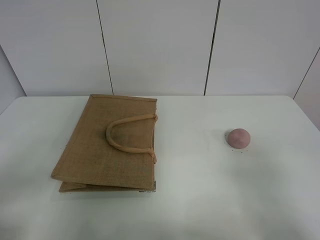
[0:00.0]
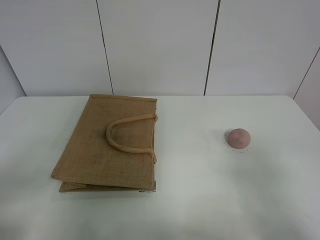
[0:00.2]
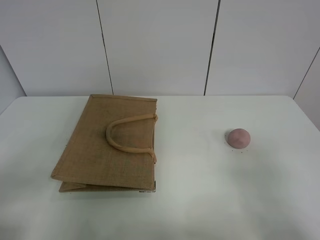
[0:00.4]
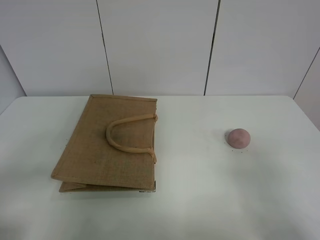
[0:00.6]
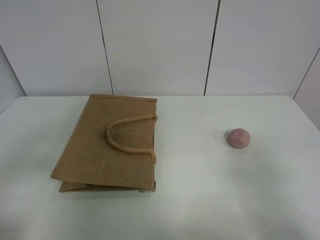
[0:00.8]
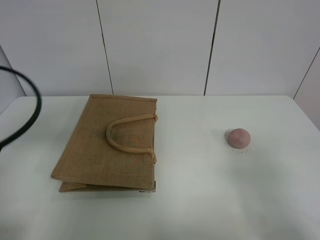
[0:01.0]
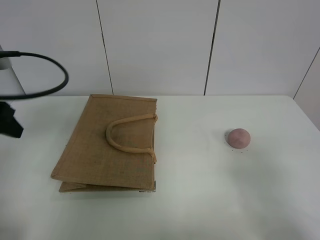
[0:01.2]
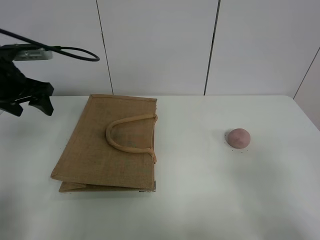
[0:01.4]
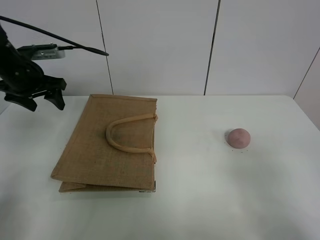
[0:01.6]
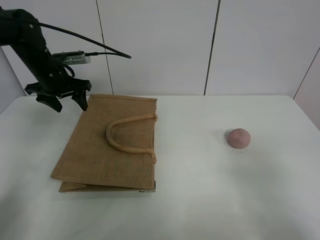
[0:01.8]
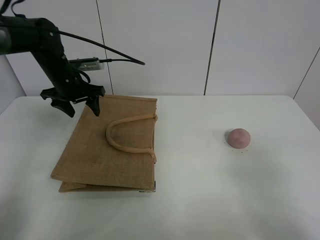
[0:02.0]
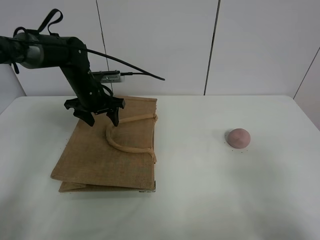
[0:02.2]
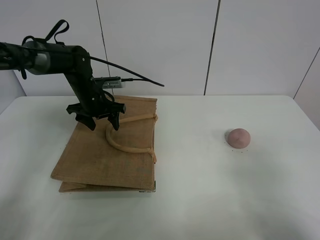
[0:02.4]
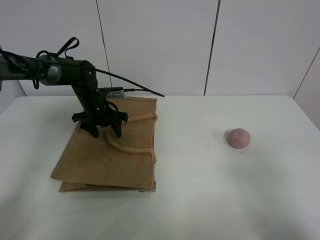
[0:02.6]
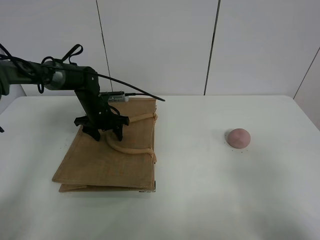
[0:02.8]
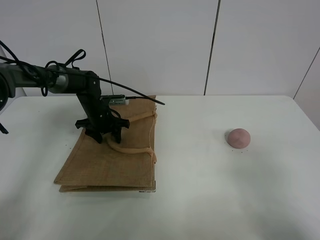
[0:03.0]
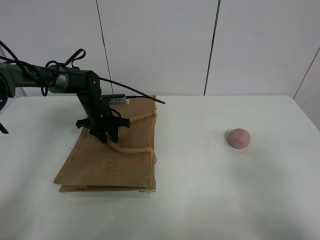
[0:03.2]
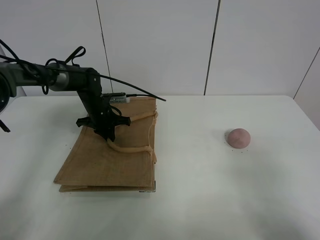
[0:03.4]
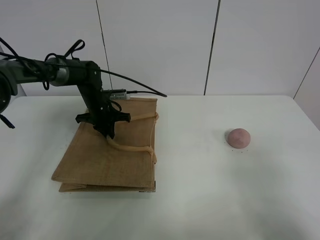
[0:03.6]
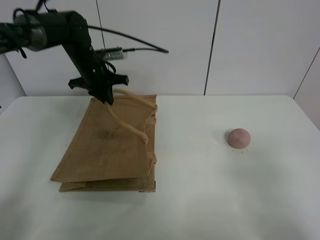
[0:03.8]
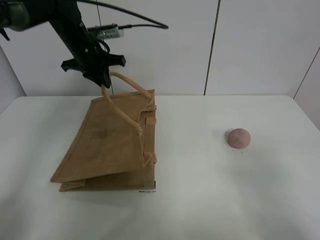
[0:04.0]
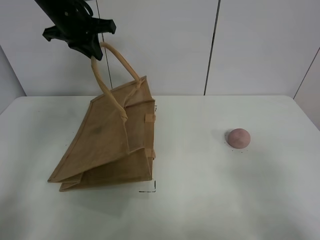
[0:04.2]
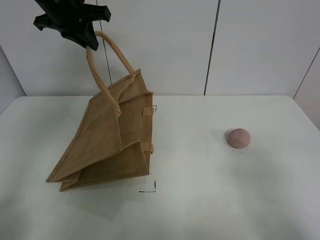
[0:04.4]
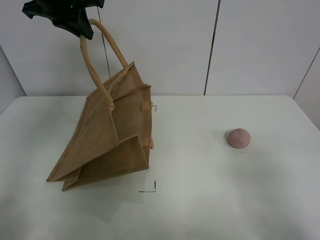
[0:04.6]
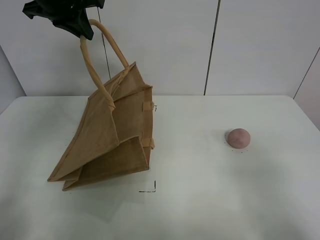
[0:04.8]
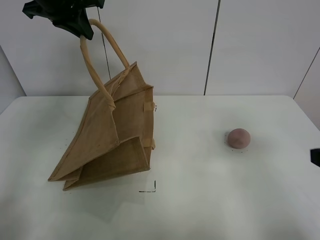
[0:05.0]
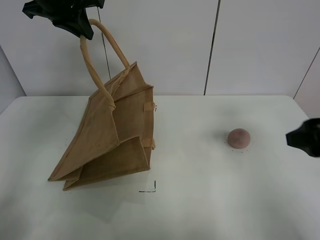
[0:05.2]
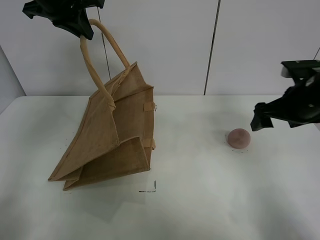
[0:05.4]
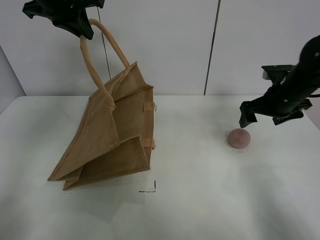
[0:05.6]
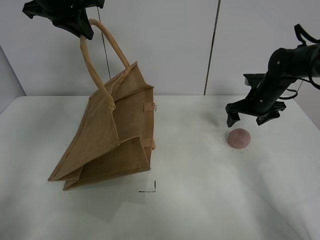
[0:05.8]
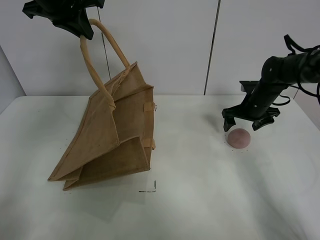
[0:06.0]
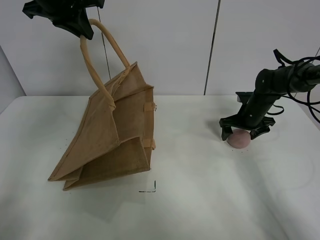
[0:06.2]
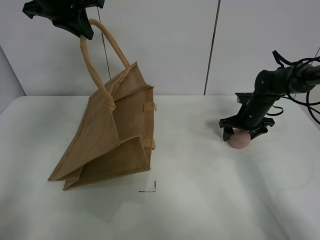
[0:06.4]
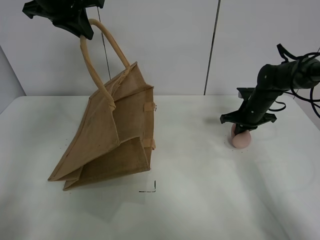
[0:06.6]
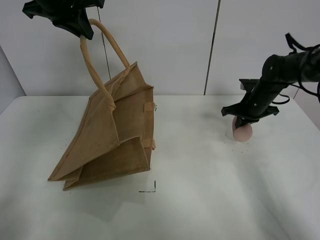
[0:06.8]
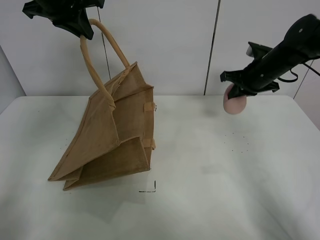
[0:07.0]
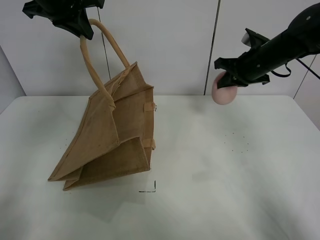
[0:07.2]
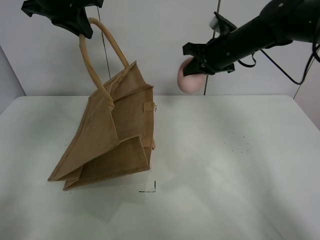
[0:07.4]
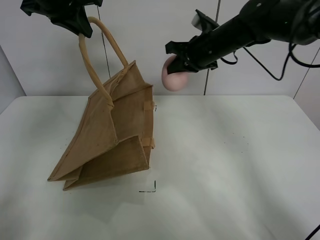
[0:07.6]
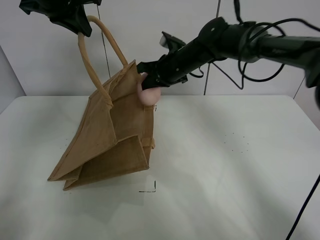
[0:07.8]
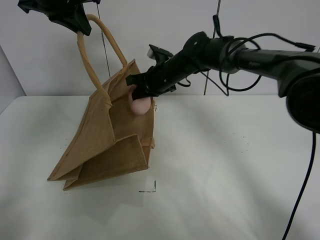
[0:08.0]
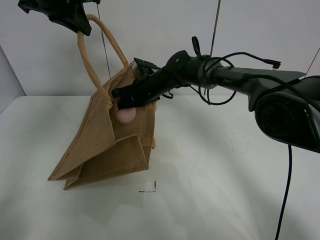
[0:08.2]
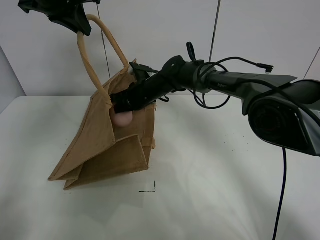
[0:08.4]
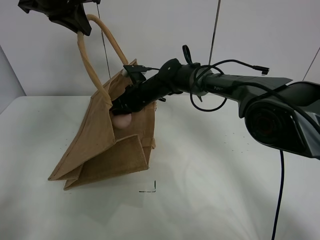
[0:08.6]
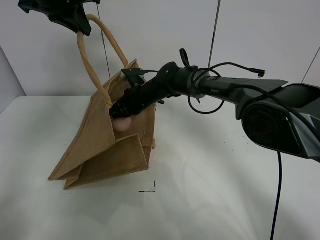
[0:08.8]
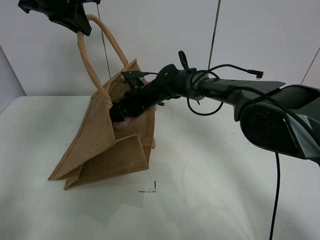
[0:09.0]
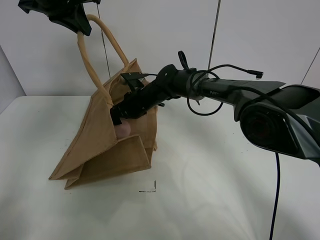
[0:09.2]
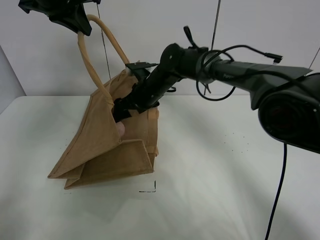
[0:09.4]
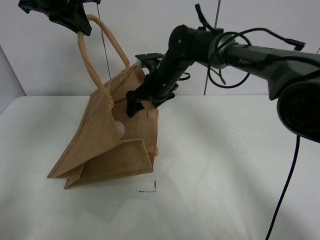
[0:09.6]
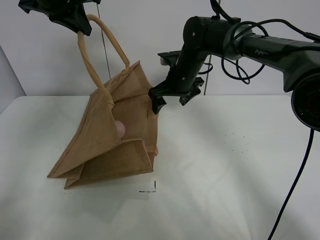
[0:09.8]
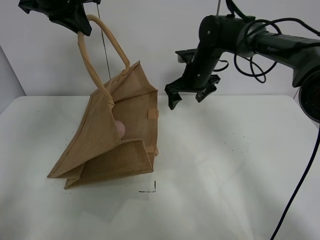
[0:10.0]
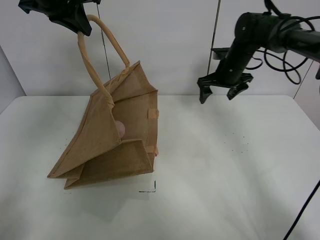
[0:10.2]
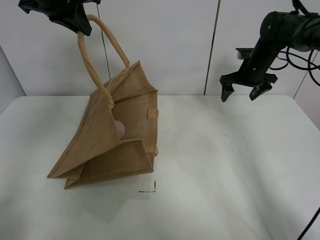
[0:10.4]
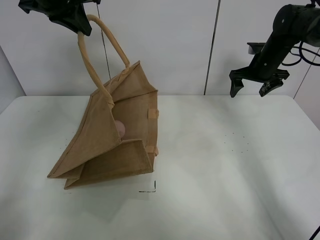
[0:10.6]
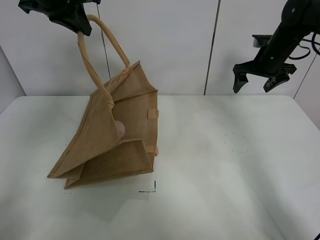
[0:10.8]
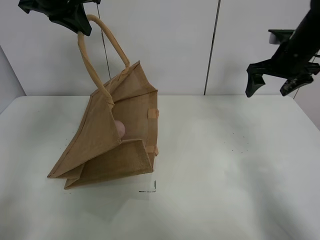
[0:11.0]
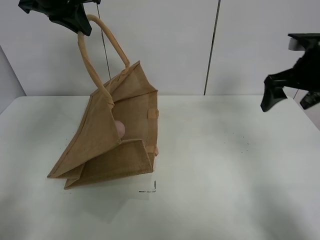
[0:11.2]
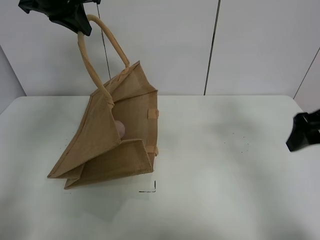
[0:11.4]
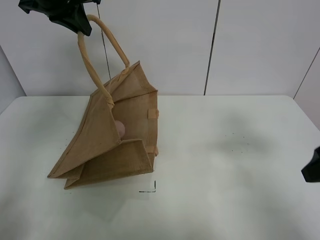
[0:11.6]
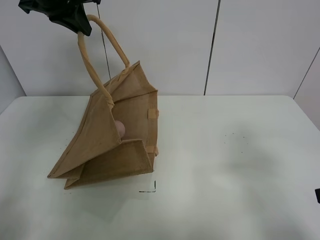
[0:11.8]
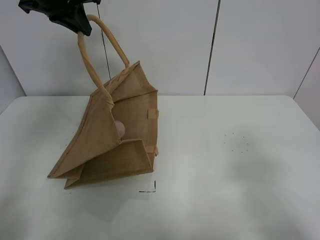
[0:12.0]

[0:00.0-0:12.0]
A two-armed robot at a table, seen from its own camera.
Task of the whole recording: open the brown linen bag and put the peach in the bag.
Step, 0:00.0 to 0:04.6: Lift the handbag with left gripper.
Step, 0:04.8 to 0:06.6: Grasp the peach with right gripper.
Step, 0:06.8 to 0:09.8: Place the peach in the handbag with right gripper.
0:00.0 to 0:01.6: The left gripper is displaced forward by some 40 cm.
0:01.6 to 0:03.0: The left gripper is displaced downward and to the right by some 20 cm.
0:03.0 to 0:04.4: The left gripper goes roughly 30 cm upward, and closes its fingers.
0:04.4 to 0:06.0: The right gripper shifts approximately 40 cm forward.
0:06.0 to 0:07.6: The right gripper goes approximately 20 cm to the left and upward, and closes up.
0:07.6 to 0:09.0: The right gripper moves downward and to the left, some 20 cm, and opens up.
0:09.0 to 0:10.4: The right gripper shifts about 30 cm to the right.
0:10.4 to 0:12.0: The right gripper travels backward by some 40 cm.

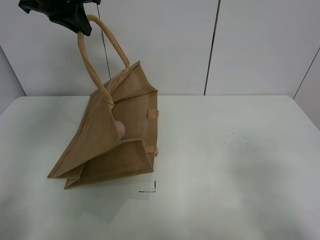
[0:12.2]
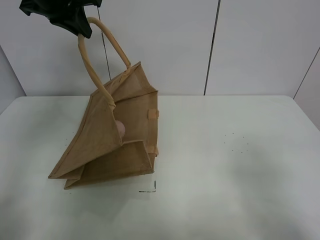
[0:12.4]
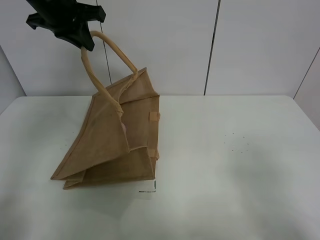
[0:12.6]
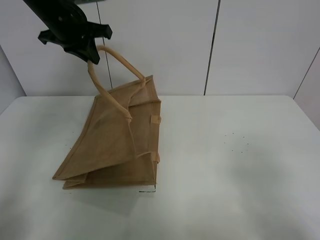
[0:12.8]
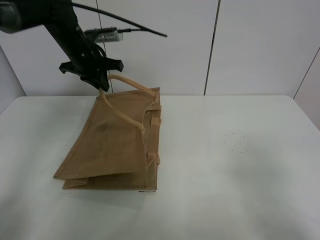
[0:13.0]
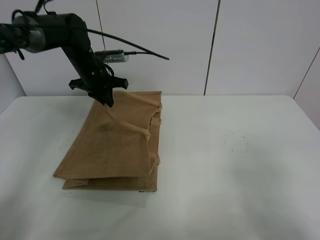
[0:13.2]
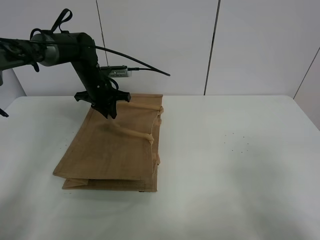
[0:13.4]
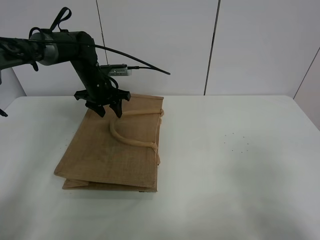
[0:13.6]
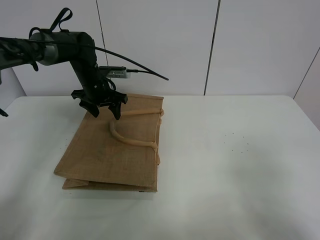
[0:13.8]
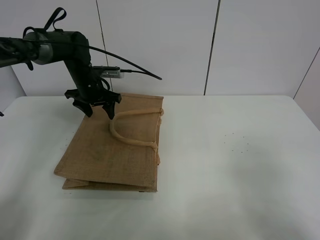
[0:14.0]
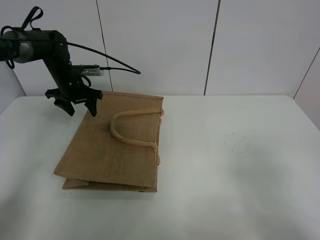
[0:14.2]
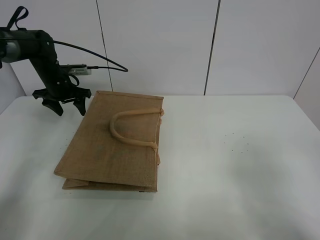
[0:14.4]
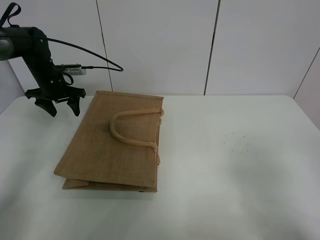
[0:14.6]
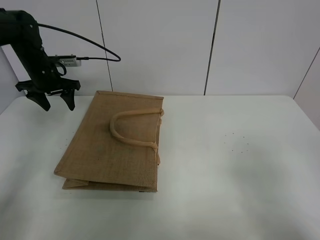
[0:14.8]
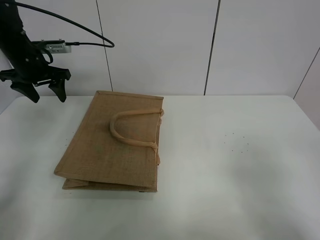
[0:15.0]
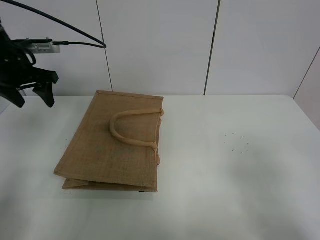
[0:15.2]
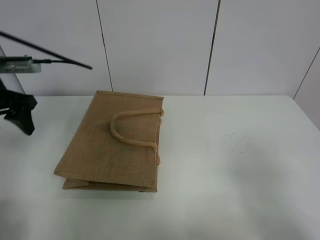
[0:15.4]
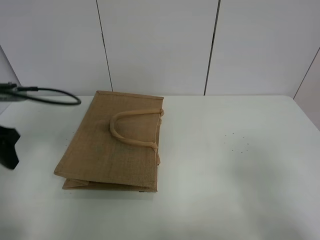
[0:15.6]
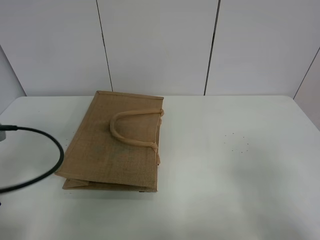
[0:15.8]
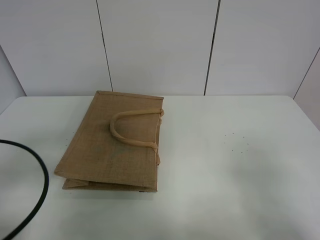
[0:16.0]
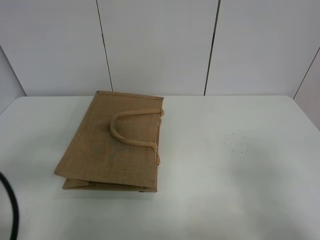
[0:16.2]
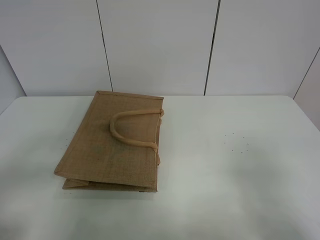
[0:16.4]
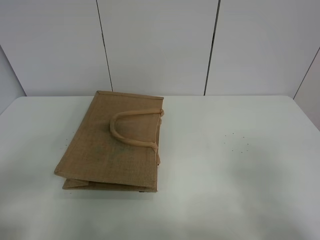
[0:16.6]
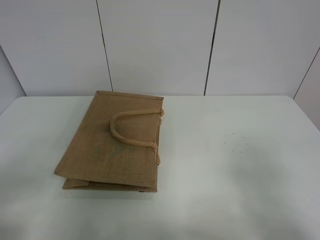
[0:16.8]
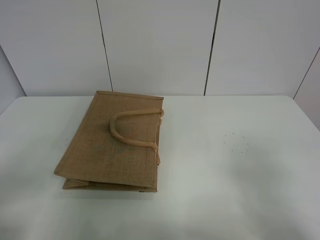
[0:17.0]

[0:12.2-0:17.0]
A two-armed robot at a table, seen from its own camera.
Task of the whole recording: open the brown linen bag and put the peach in the bag.
Step, 0:12.2 to 0:14.2: Put down the handbag with left grippe.
0:12.2 to 0:13.8: The left gripper shifts approximately 25 cm downward, and opens.
0:13.8 to 0:15.4: The left gripper goes approximately 25 cm backward, to the left and upward.
0:15.4 to 0:17.0: The left gripper shifts some 30 cm backward.
